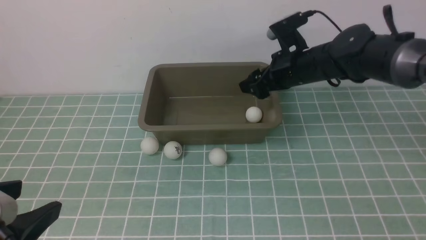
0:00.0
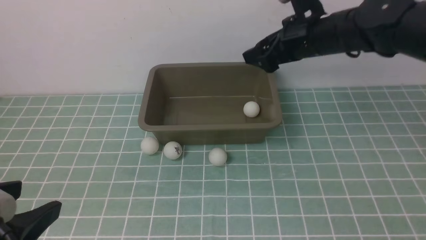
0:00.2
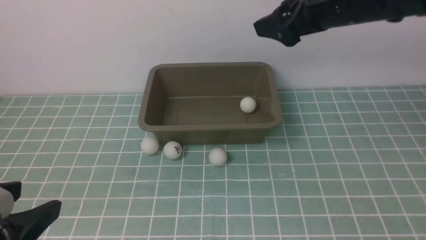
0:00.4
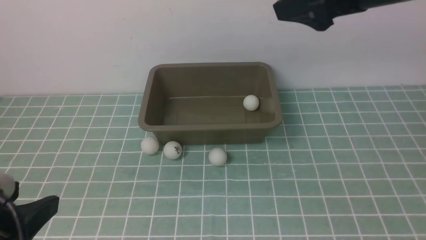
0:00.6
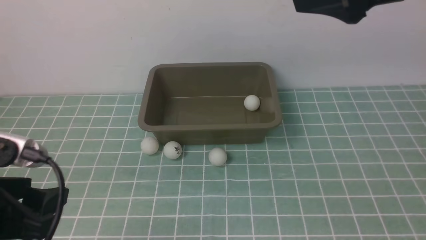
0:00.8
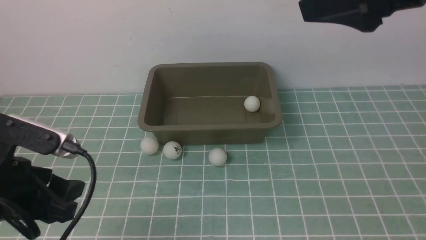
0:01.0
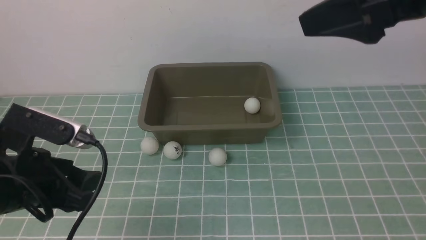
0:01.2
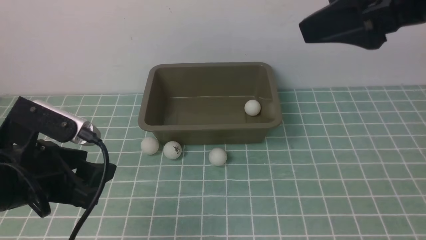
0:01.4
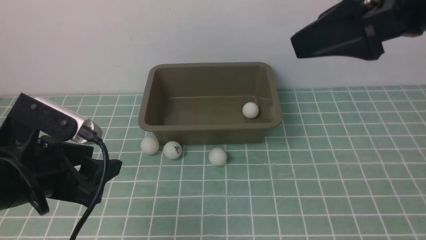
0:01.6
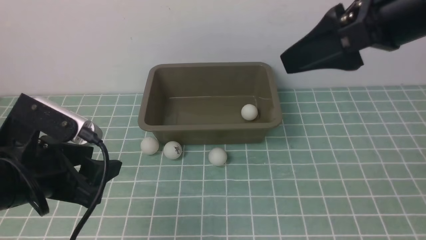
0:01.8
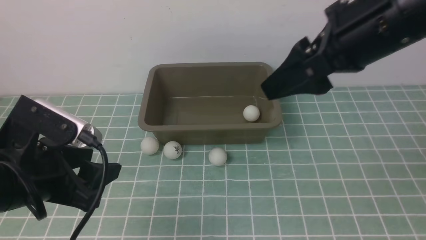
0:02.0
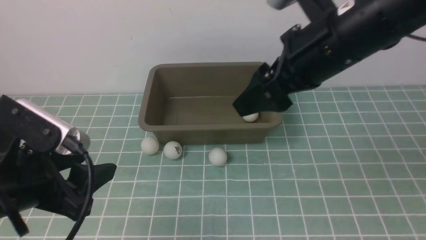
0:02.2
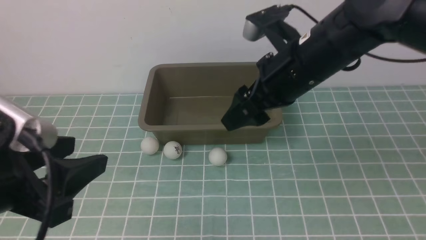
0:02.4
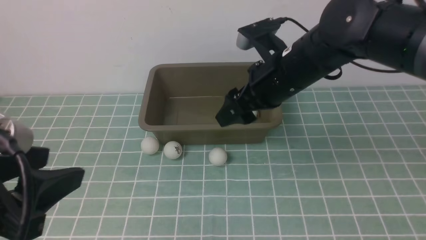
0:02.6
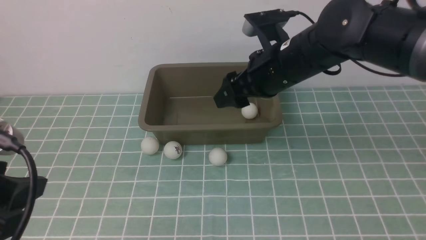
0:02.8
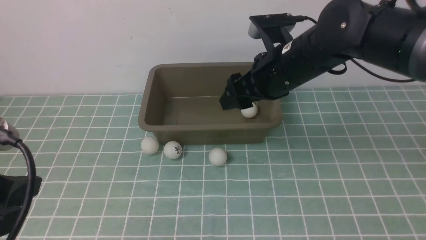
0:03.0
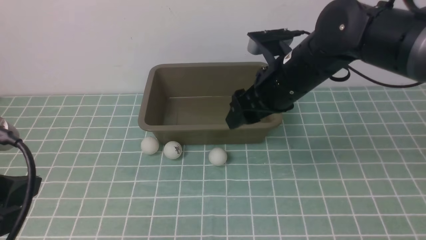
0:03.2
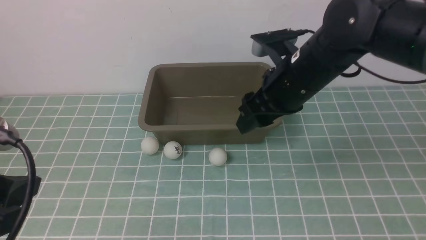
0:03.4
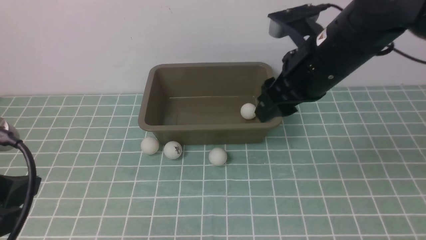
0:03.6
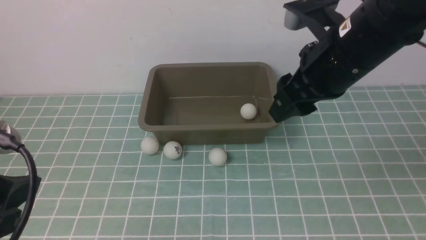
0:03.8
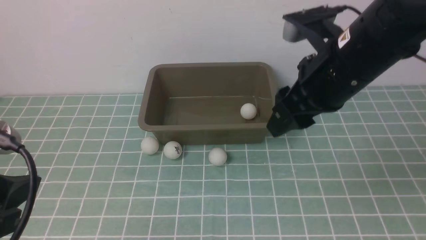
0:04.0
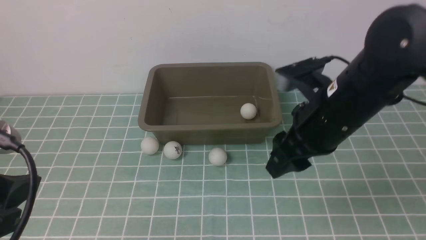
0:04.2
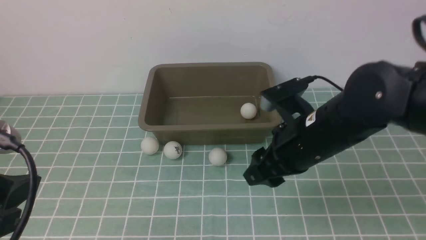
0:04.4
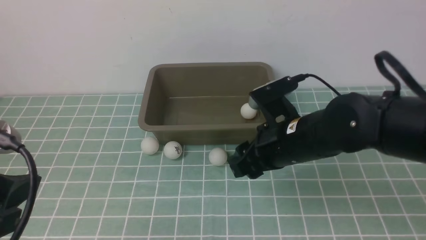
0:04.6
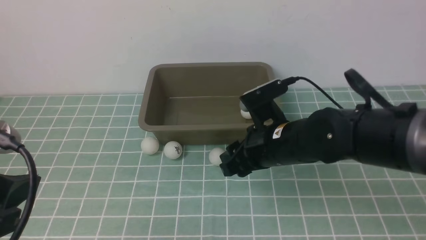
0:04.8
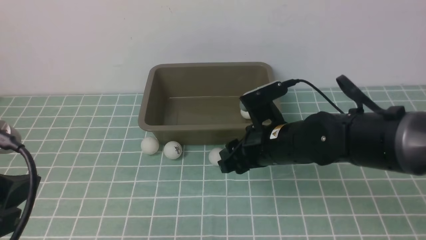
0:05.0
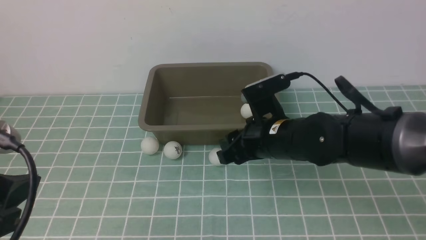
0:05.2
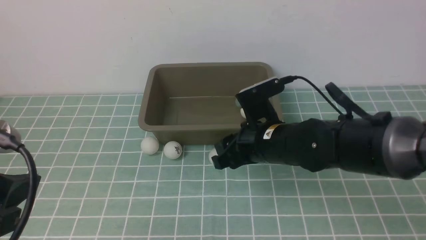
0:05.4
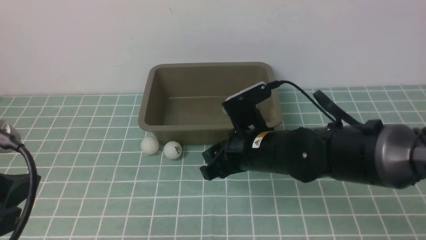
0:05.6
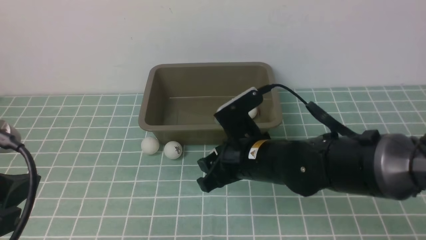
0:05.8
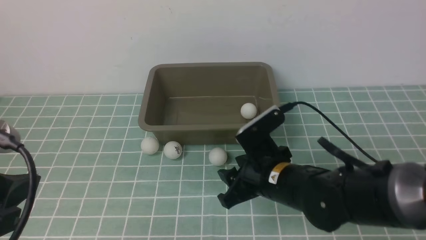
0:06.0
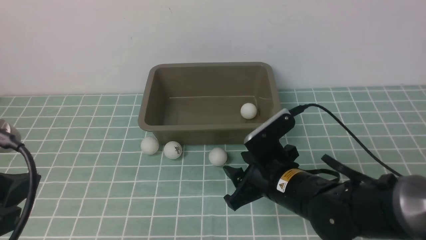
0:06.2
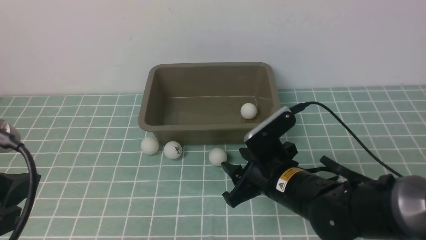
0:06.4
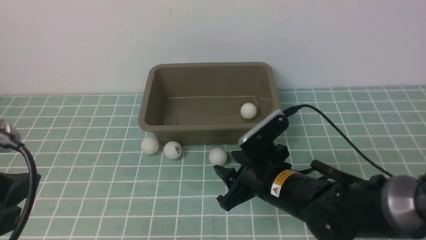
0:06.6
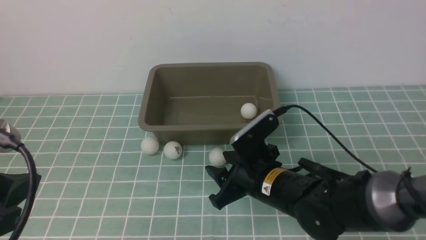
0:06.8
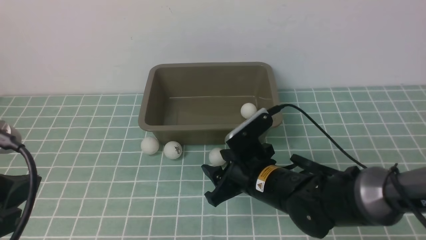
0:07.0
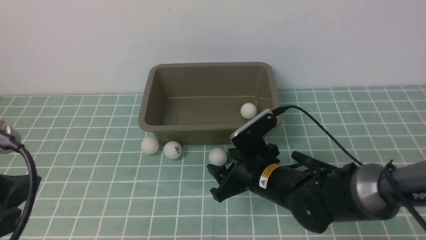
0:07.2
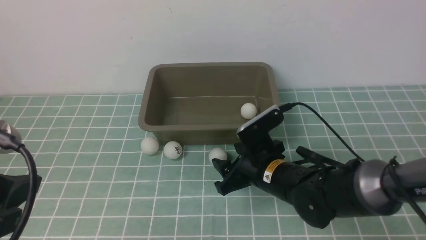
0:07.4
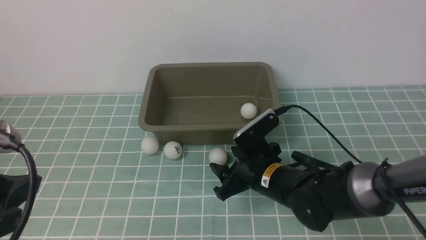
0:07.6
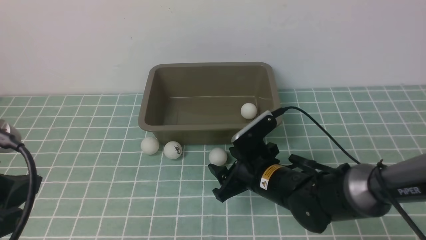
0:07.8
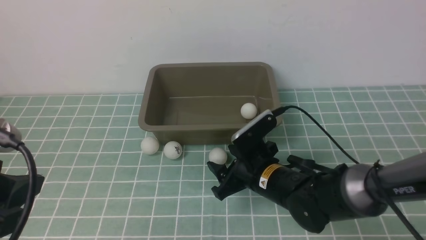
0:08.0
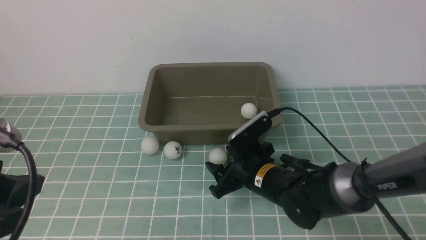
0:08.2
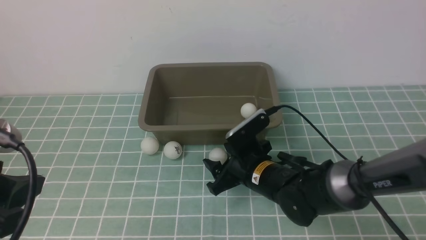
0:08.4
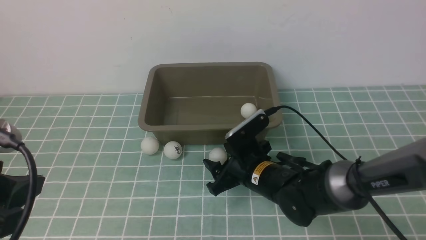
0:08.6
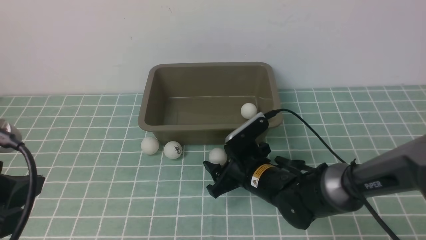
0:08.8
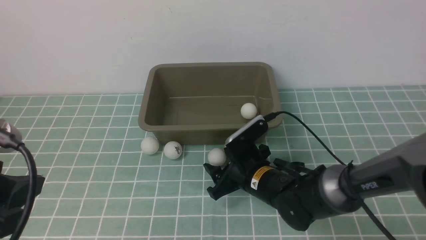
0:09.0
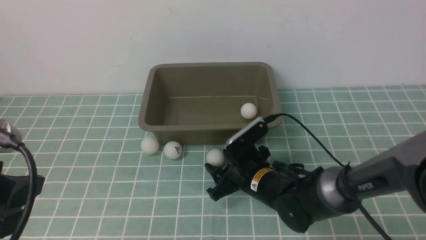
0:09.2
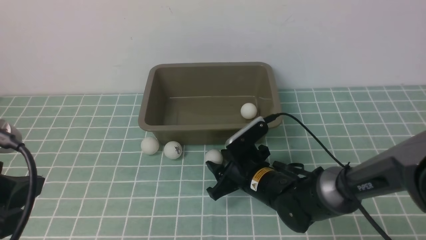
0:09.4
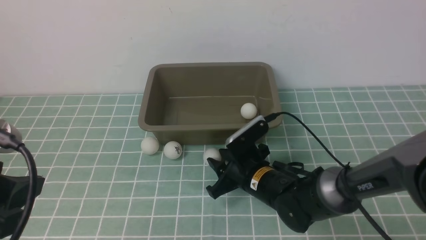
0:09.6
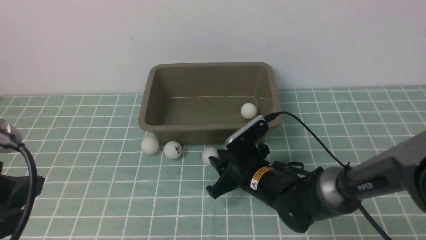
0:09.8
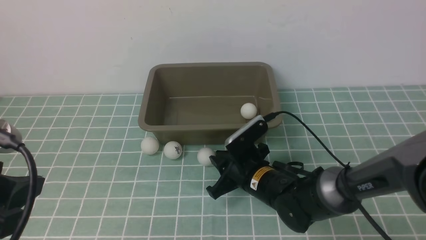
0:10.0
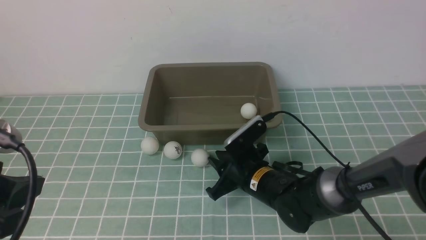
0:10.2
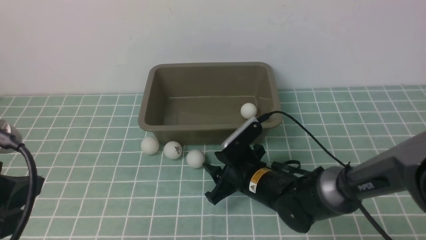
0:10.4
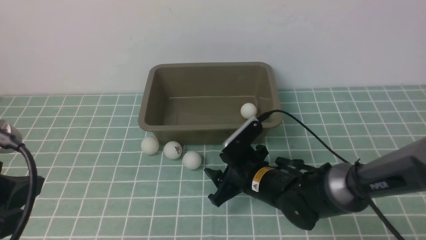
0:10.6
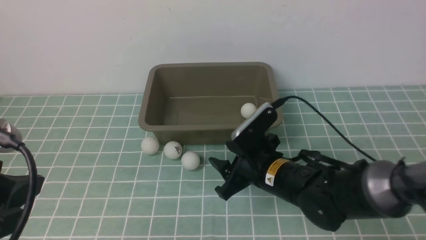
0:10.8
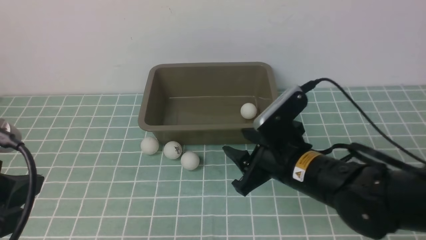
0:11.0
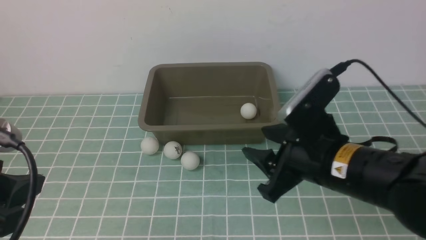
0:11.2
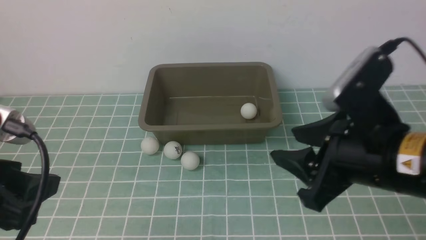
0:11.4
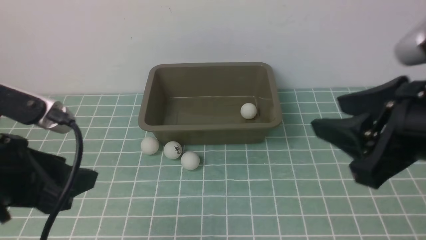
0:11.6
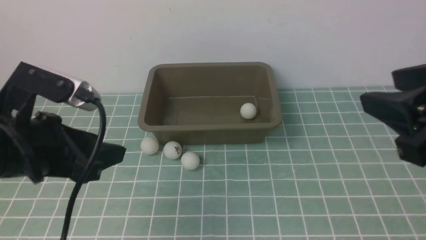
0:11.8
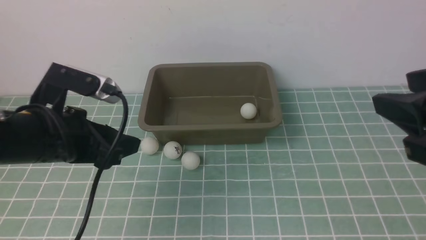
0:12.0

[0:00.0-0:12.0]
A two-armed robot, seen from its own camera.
0:00.0 to 0:01.6: The left gripper travels forward by about 10 cm. The right gripper travels backward and upward by some 25 cm.
0:01.6 to 0:03.0: The left gripper is displaced backward and upward by some 10 cm. The right gripper goes some 15 cm downward, forward and to the left, and closes up.
0:03.0 to 0:04.4: The right gripper travels downward by approximately 10 cm.
0:04.4 to 0:06.0: The right gripper goes some 5 cm downward.
0:06.0 to 0:07.6: The right gripper shifts by some 5 cm, and opens its fingers.
0:07.6 to 0:09.0: The grippers stay close to where they were, moving slightly.
0:09.0 to 0:10.4: The right gripper closes up.
0:10.4 to 0:12.0: The right gripper moves upward, to the right and backward, about 35 cm. The left gripper is displaced forward and downward by approximately 15 cm.

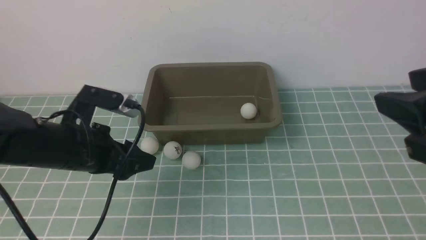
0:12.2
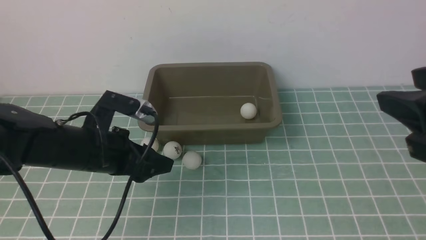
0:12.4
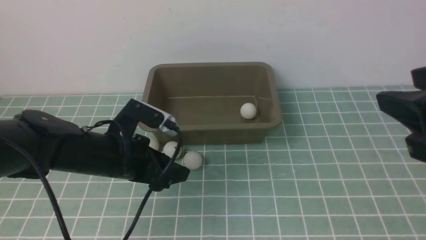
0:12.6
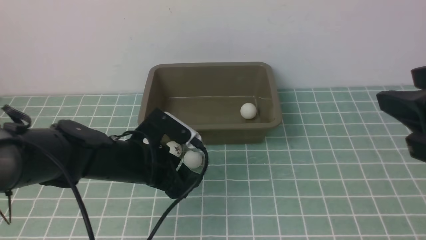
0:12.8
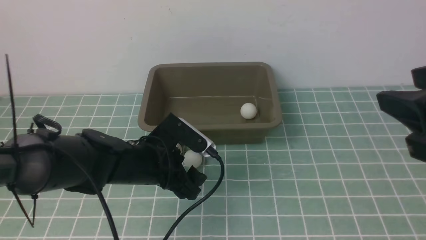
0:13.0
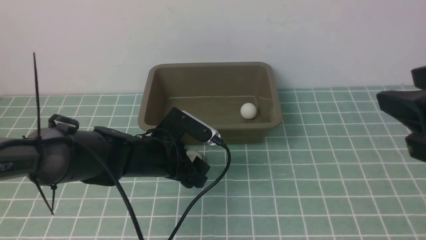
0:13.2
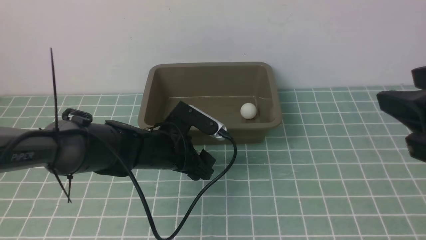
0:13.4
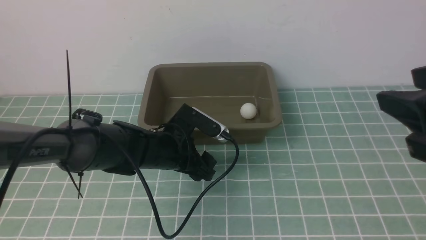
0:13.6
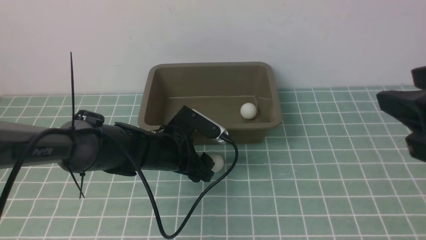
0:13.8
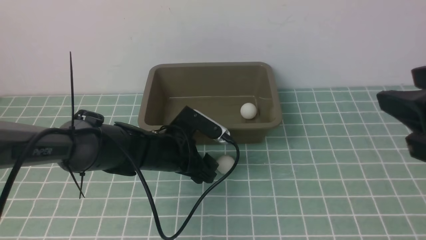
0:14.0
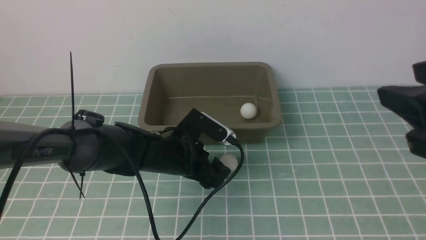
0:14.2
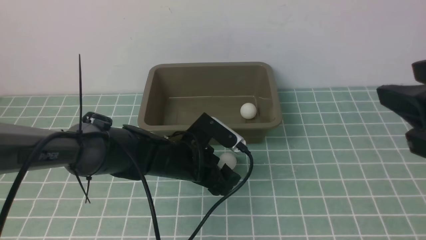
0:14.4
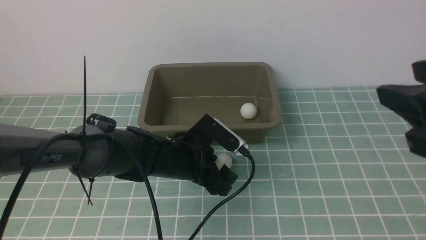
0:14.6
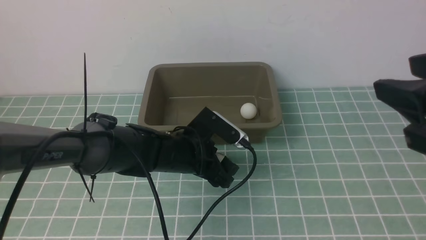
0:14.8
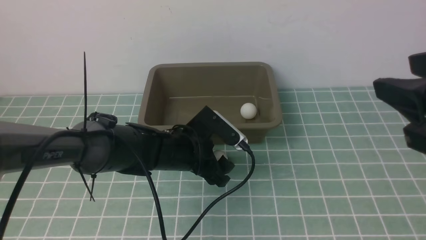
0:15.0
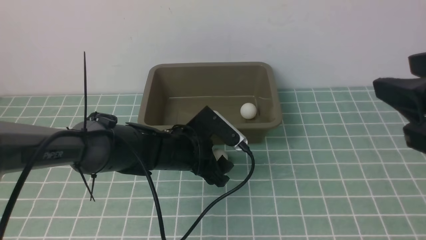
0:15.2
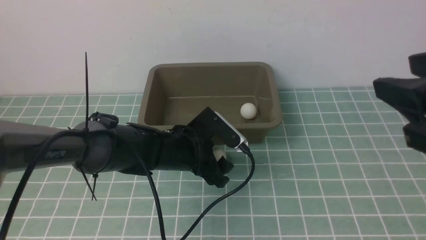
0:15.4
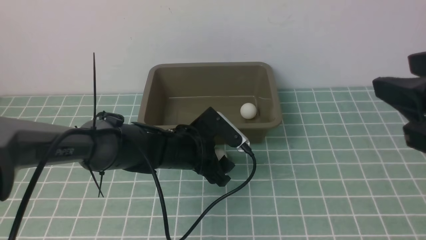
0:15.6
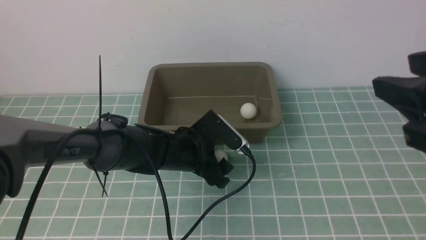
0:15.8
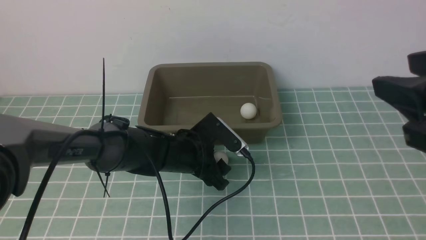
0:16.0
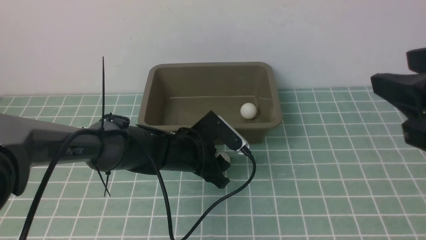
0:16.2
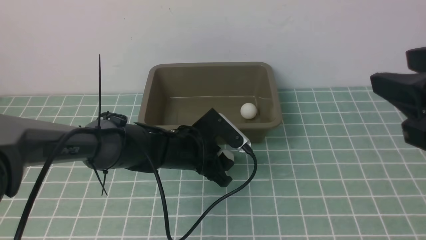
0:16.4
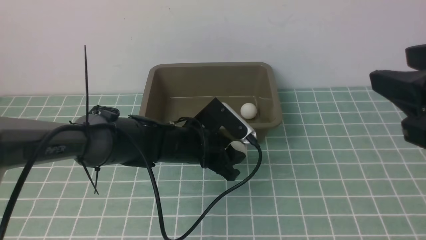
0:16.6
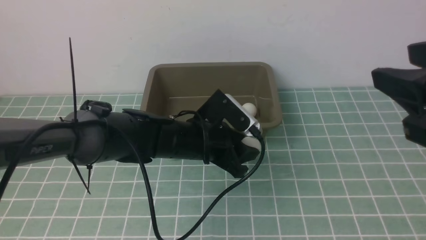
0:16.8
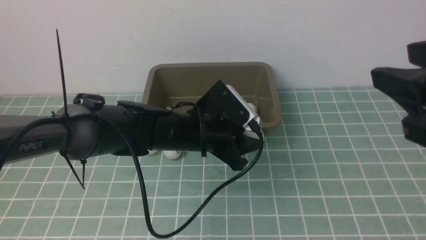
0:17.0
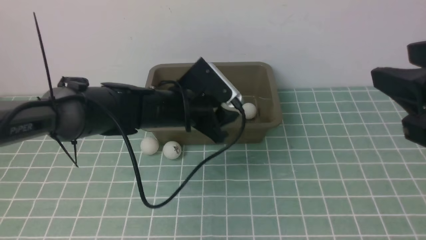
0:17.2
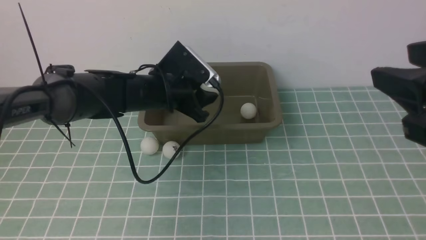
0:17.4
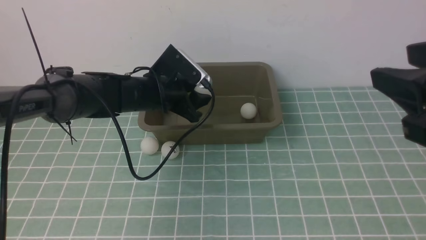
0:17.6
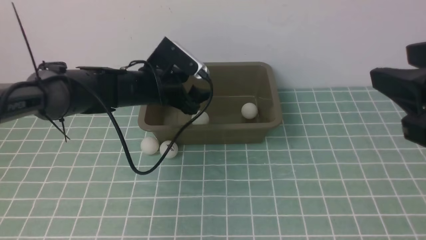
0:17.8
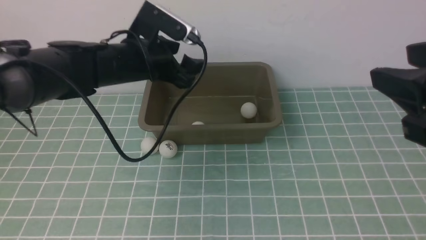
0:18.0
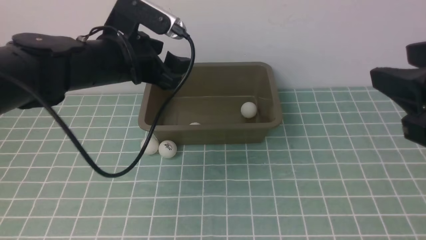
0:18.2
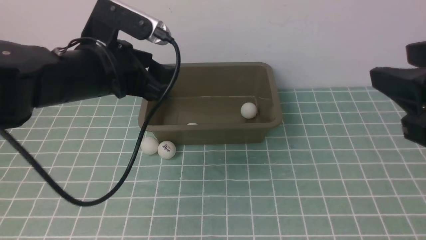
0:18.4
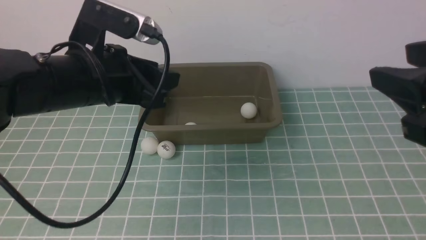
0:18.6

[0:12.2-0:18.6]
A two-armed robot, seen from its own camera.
Step, 0:12.2 to 0:16.6: use the left arm to clamp the table tennis ball closest to it.
Step, 0:16.8 to 0:17.8: use the left arm to put the table tennis ball into the box.
0:12.2 to 0:13.8: The left gripper is displaced to the right, downward and forward by some 15 cm, and opens its fingers.
0:13.8 to 0:15.4: The grippers make only small movements.
0:15.4 to 0:17.0: The left gripper moves upward, some 5 cm, and closes up.
0:17.0 to 0:18.6: The left gripper shifts about 15 cm backward, upward and to the left, and opens, then closes once more.
